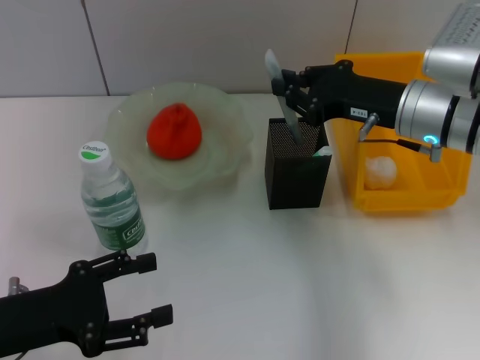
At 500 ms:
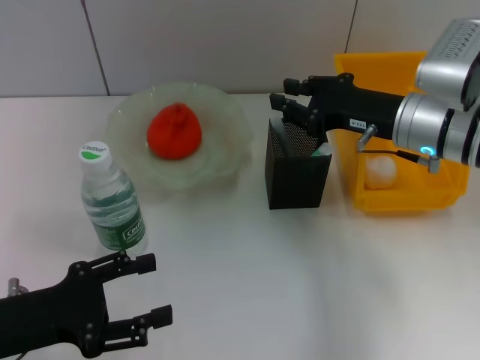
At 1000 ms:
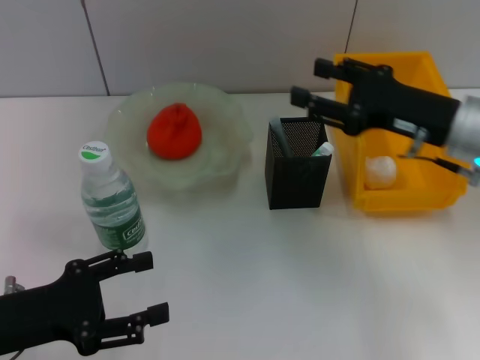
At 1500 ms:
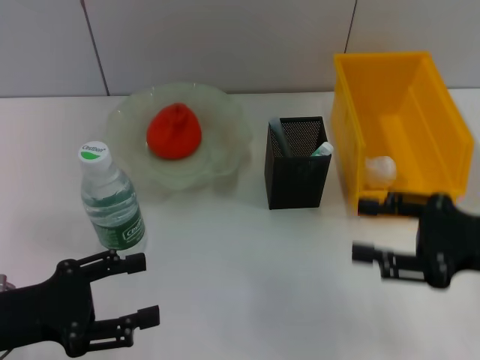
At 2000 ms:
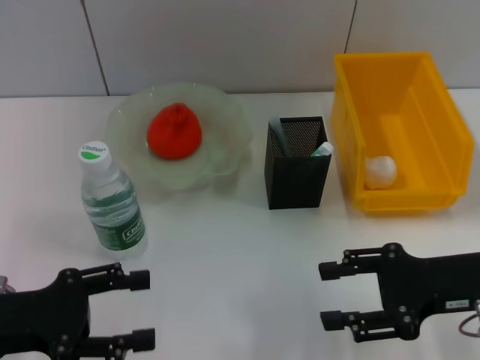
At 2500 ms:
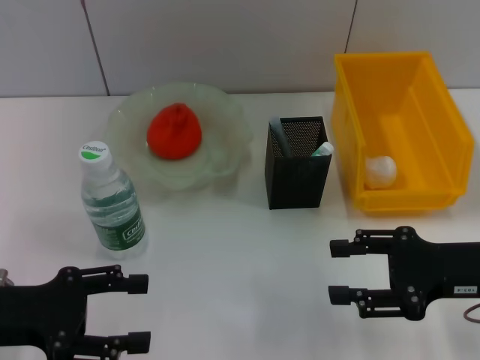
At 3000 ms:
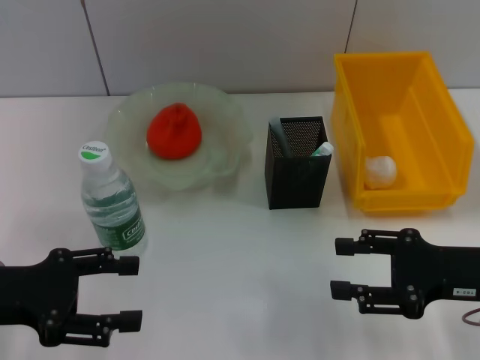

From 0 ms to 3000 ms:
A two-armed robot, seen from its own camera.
From 0 ms to 1500 ms: The right gripper is displaced backward and to the right by about 15 cm, and opens its fingers.
From 1500 ms to 3000 ms: The grippers make only small movements.
